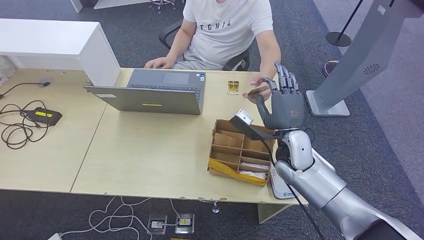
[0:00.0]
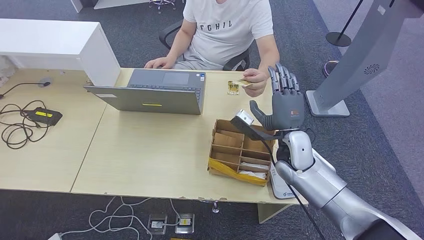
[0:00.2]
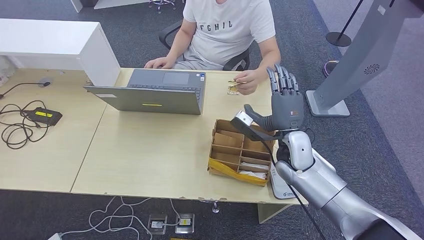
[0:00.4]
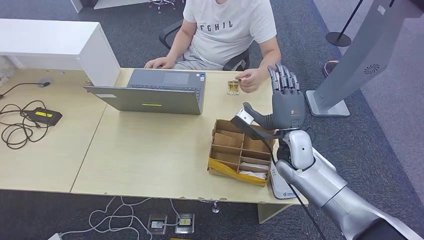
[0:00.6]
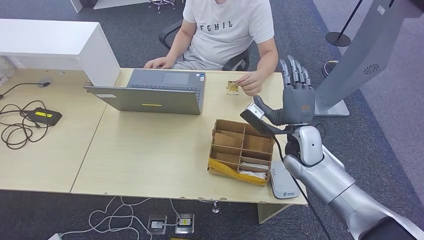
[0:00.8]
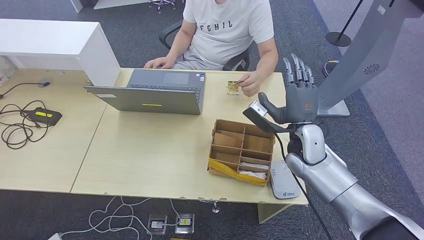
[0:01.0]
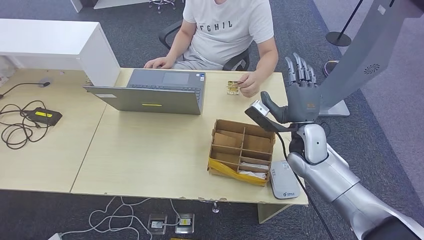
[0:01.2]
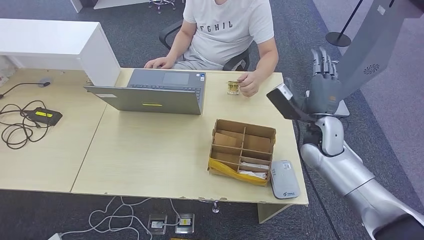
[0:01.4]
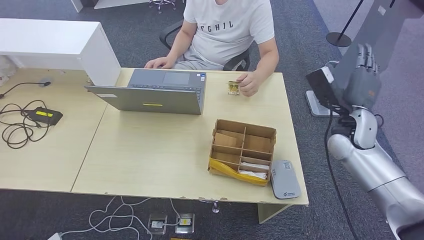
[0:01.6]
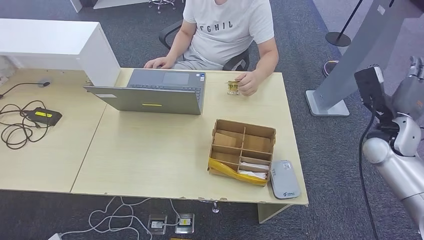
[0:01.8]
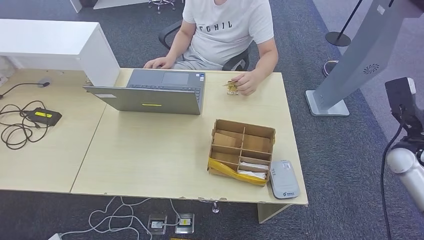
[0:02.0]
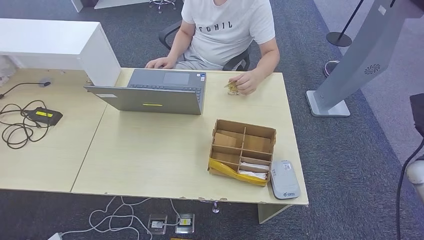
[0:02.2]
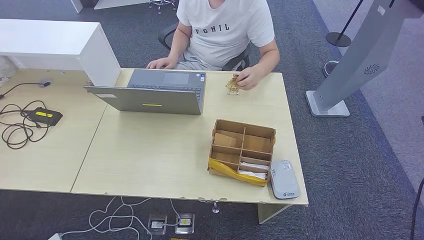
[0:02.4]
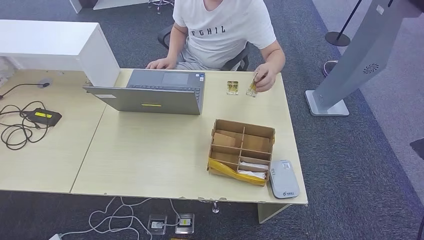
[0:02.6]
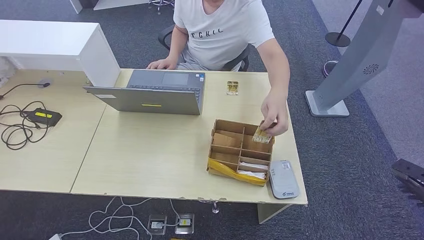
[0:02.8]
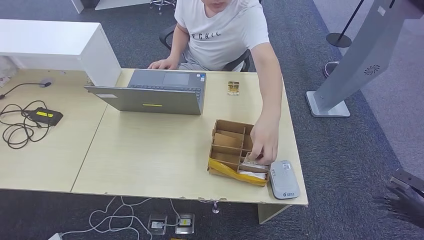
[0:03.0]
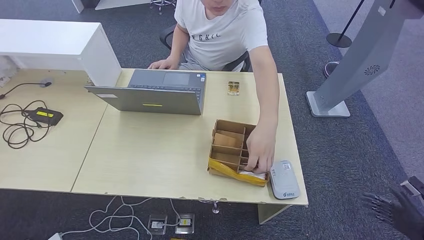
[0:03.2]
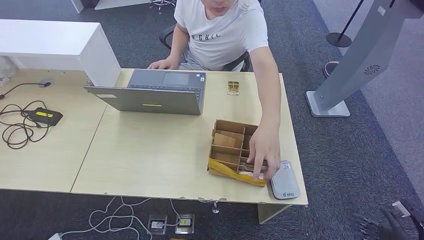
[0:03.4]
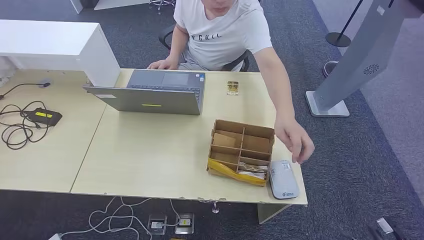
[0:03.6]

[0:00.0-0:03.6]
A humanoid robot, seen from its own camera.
Step, 0:00.0 to 0:03.4: Hand the room key to the person.
0:00.0 to 0:01.8: The right hand is displaced to the right by approximately 20 cm.
0:01.8 to 0:03.6: The right hand moves backward, downward and to the right, approximately 40 cm.

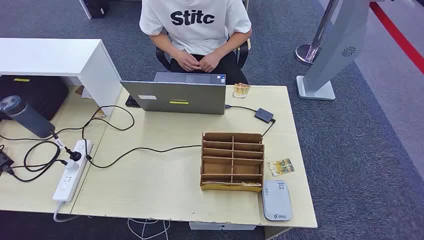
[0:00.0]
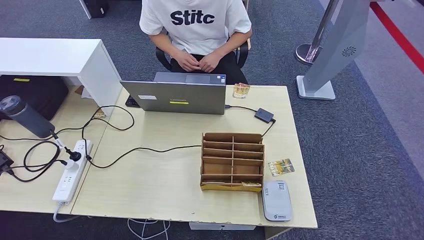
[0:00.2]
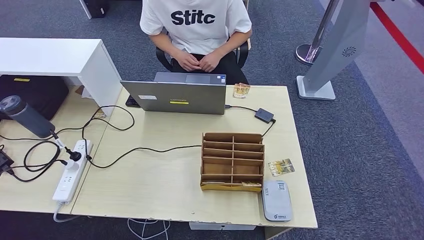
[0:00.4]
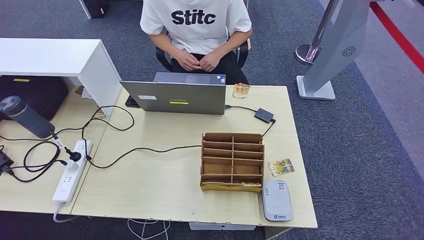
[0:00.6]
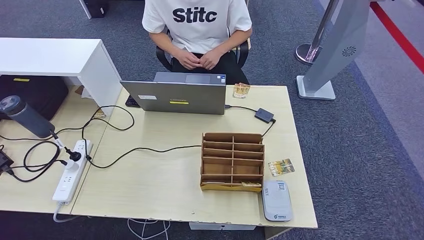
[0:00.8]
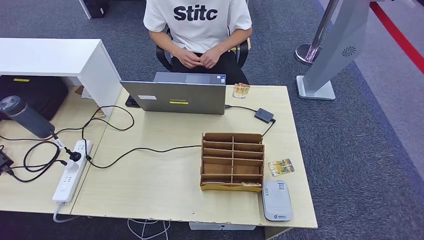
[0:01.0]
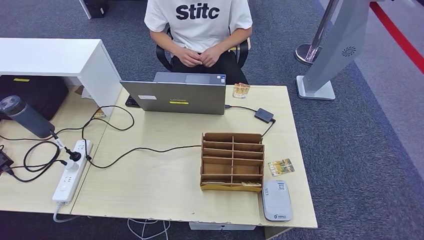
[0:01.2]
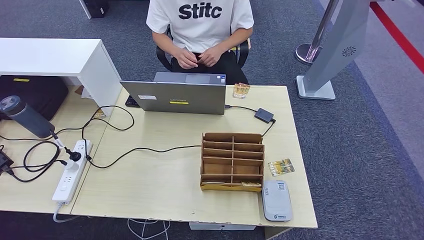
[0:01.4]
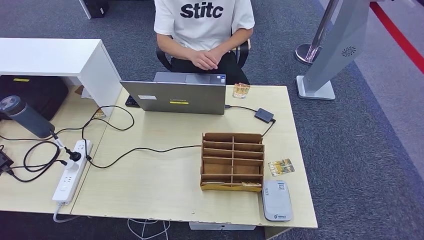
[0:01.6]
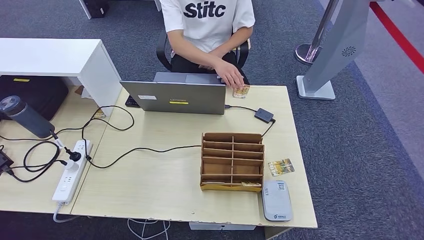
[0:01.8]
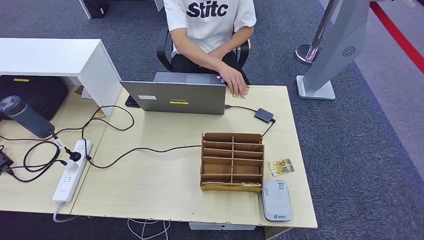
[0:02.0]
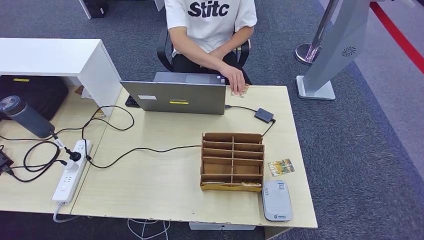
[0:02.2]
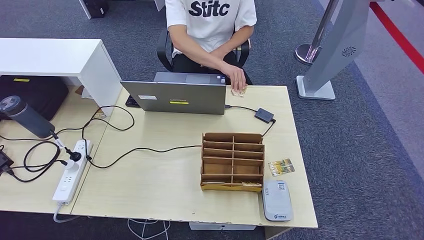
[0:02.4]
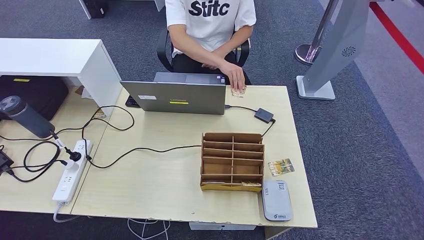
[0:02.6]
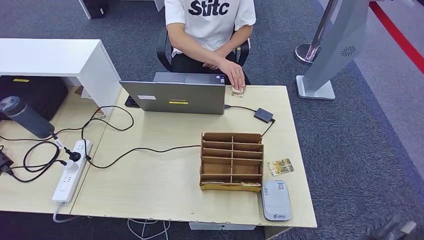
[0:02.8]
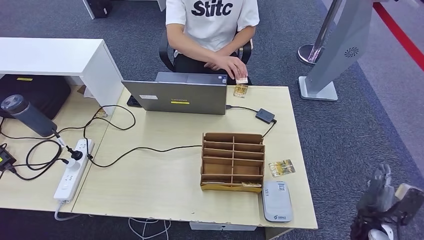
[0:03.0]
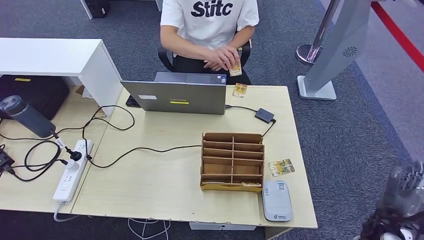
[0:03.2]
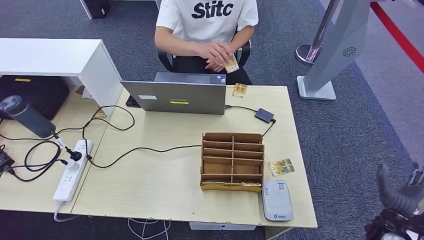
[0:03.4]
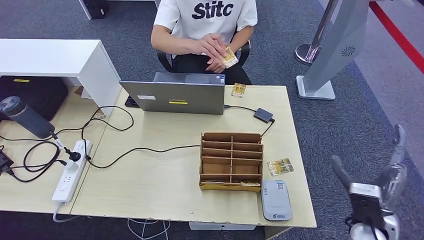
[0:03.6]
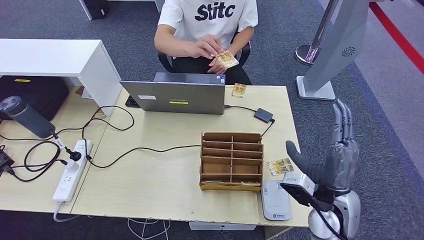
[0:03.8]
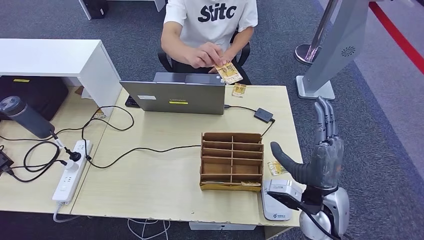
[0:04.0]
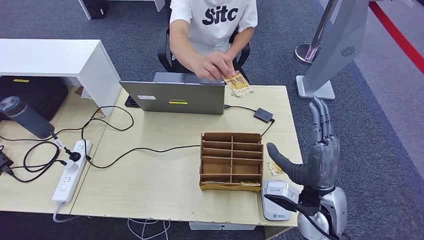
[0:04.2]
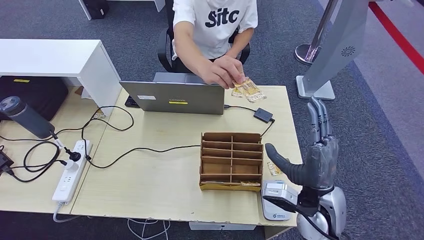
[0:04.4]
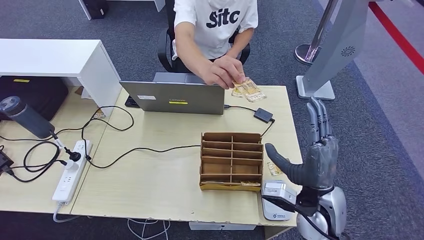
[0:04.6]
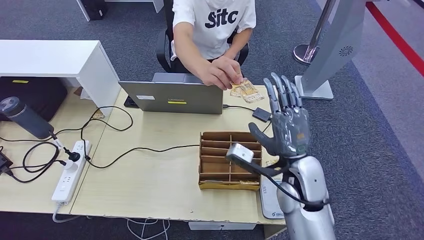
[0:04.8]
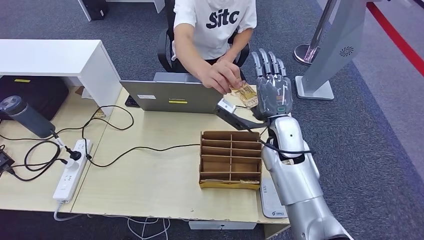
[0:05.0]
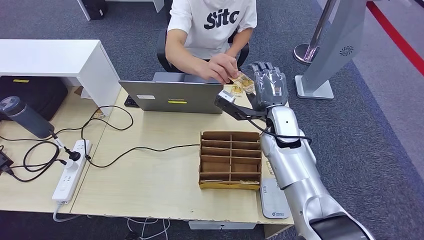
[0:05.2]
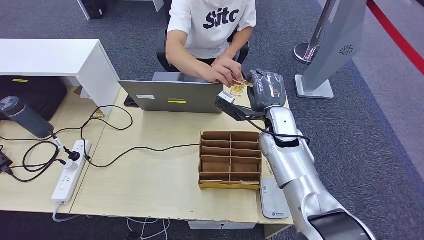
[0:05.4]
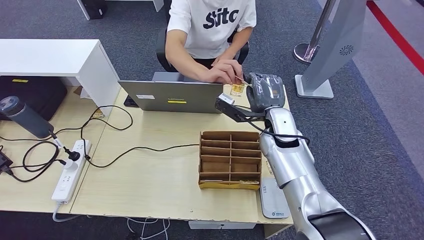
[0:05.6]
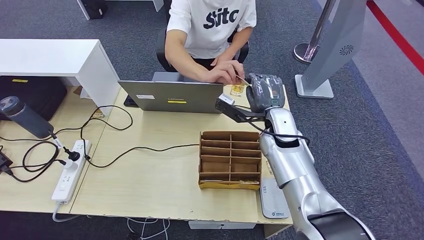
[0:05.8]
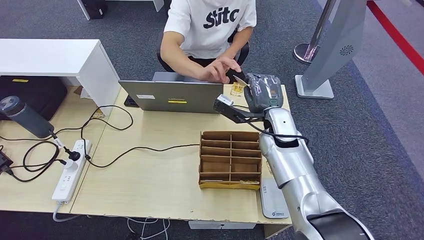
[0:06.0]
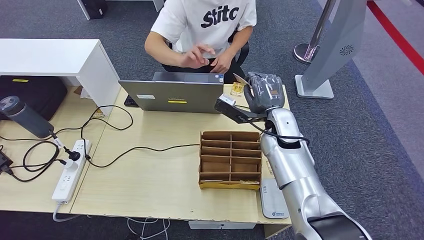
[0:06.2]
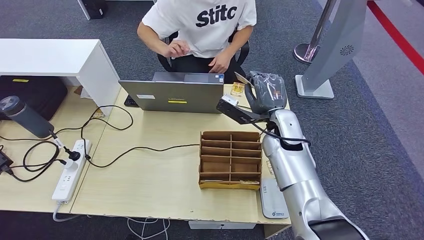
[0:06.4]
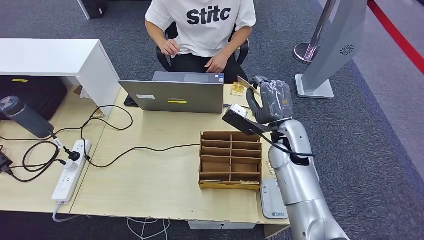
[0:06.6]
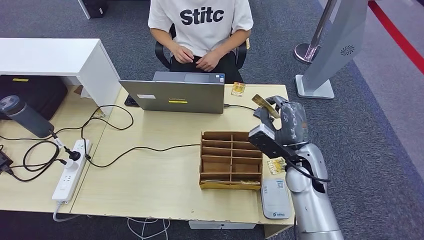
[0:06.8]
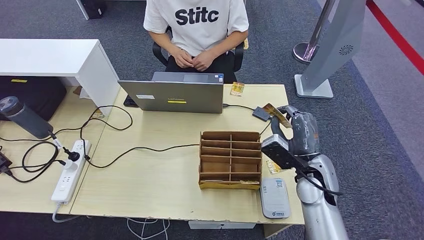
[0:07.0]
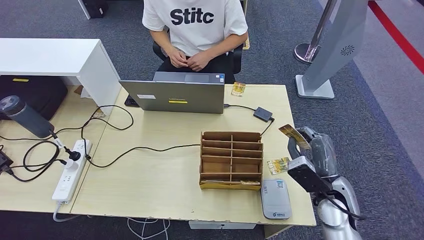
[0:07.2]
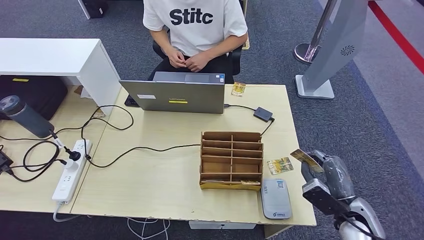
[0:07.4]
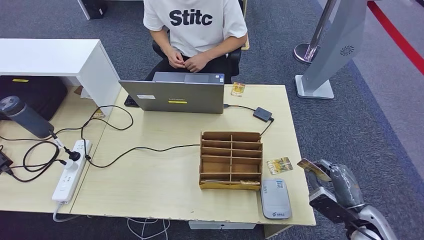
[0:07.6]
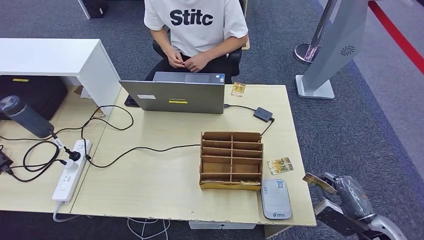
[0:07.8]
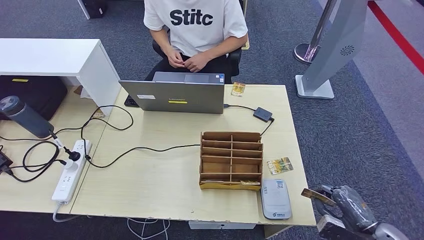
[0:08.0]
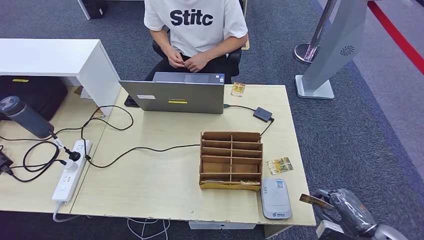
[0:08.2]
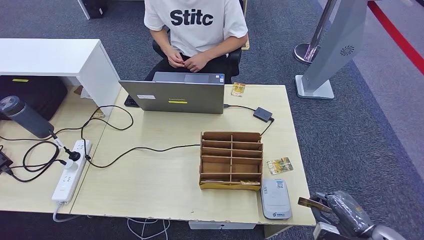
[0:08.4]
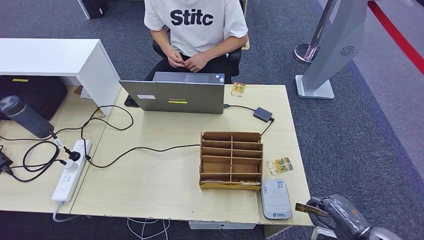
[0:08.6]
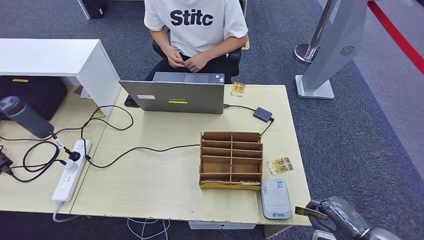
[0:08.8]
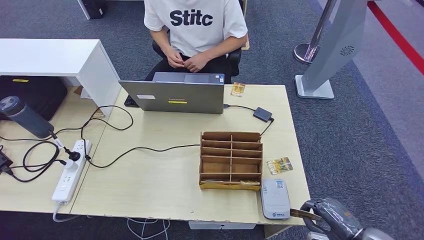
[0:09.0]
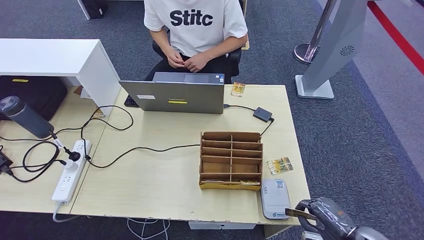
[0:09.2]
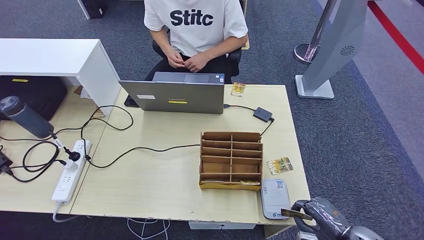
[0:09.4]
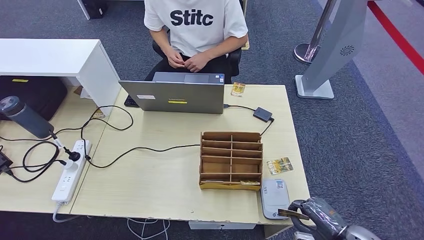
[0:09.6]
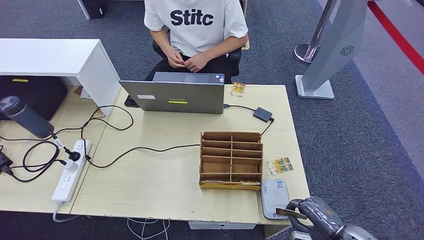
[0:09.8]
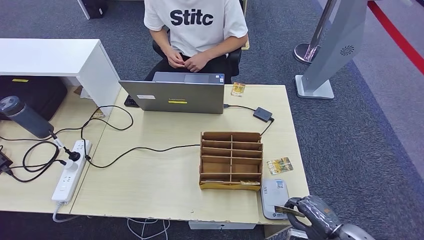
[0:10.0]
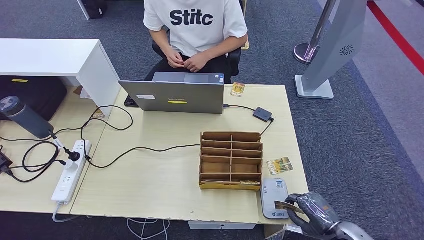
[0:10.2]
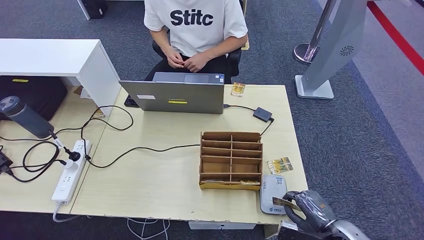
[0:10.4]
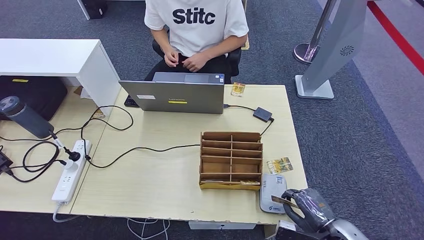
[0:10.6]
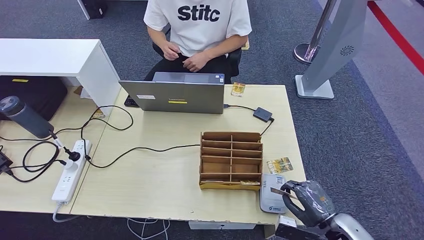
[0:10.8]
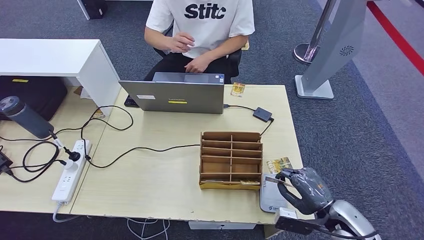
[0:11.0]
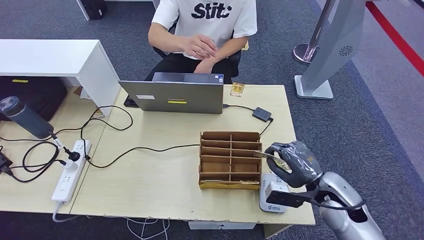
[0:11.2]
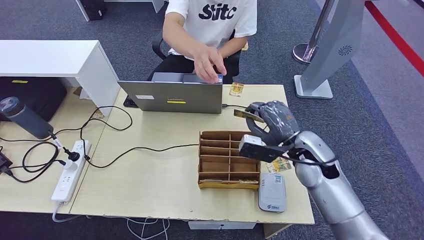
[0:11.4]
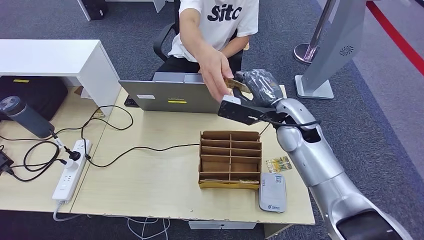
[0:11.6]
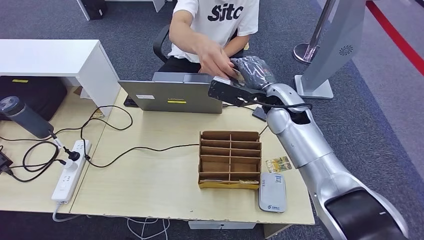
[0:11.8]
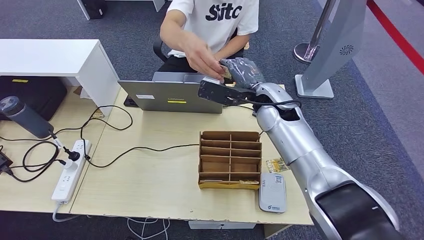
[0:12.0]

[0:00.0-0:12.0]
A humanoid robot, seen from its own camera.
Step, 0:00.0 to 0:06.0: Take the ID card from the person's hand.
Step, 0:06.2 to 0:10.8: Place the ID card on the card reader.
0:01.6 to 0:03.0: The right hand goes some 25 cm forward, upward and to the right.
0:04.4 to 0:06.0: The right hand travels forward by about 15 cm, while the left hand travels forward by roughly 5 cm.
0:06.0 to 0:07.6: The left hand moves backward, roughly 5 cm; the right hand heads to the right, backward and downward, covering about 30 cm.
0:07.6 to 0:09.0: The right hand moves backward, about 5 cm.
0:09.0 to 0:10.4: The right hand goes roughly 5 cm to the left.
0:10.4 to 0:12.0: The right hand moves forward, upward and to the left, about 40 cm; the left hand goes roughly 5 cm forward.

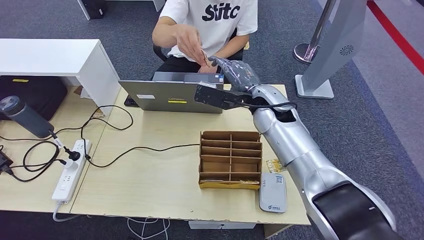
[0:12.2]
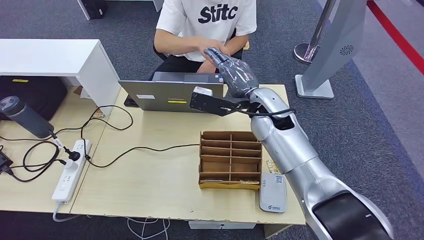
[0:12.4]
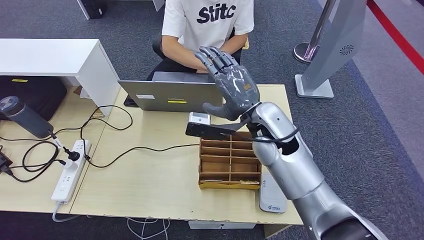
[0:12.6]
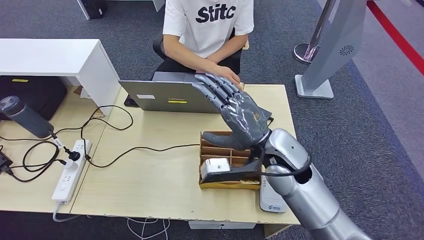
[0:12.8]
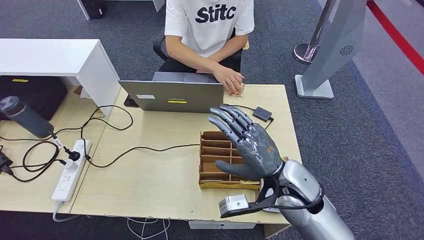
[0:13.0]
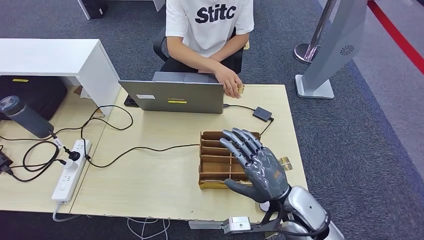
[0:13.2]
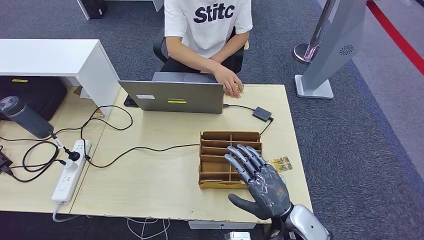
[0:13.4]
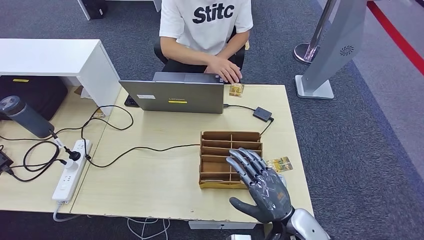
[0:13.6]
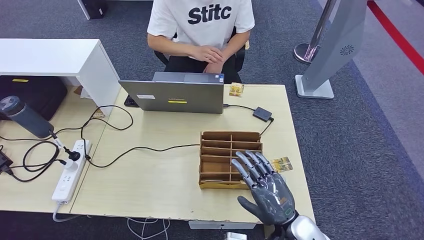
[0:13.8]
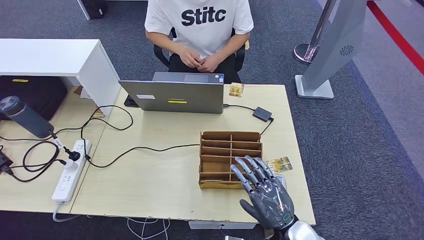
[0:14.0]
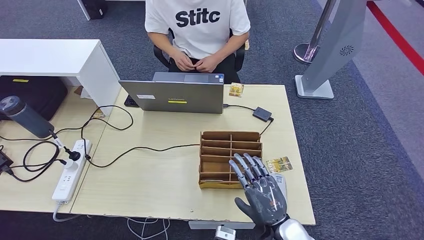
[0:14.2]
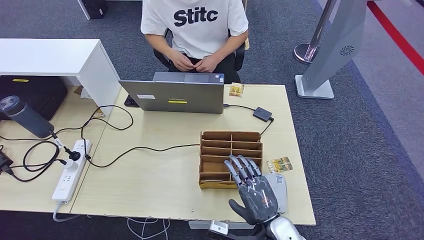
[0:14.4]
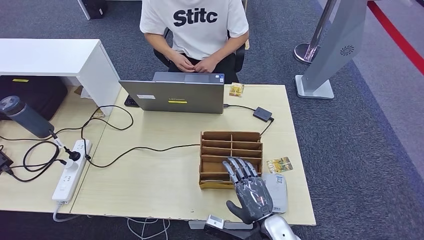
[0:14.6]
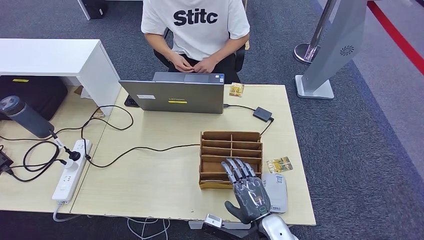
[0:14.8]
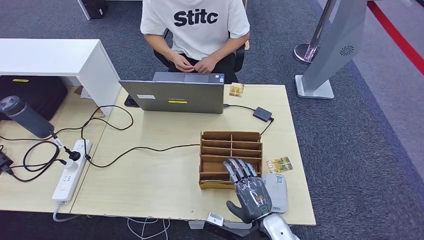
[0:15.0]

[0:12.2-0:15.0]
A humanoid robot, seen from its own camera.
0:12.2 to 0:13.6: The right hand goes approximately 30 cm backward and downward.
0:13.6 to 0:15.0: The right hand heads downward, covering about 5 cm.
